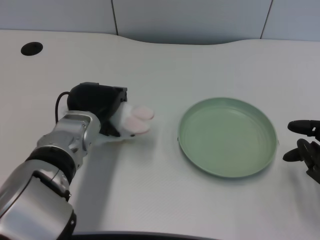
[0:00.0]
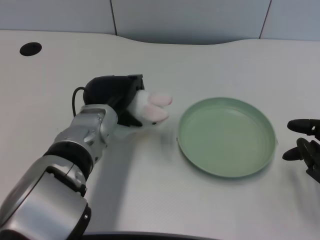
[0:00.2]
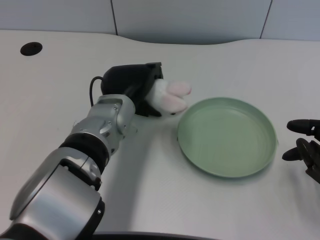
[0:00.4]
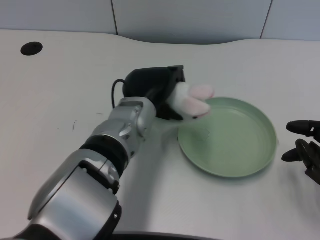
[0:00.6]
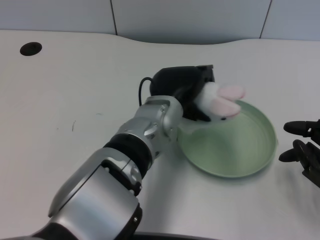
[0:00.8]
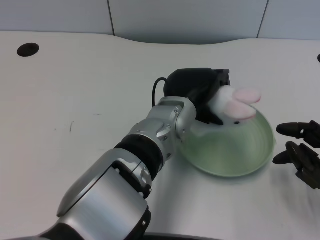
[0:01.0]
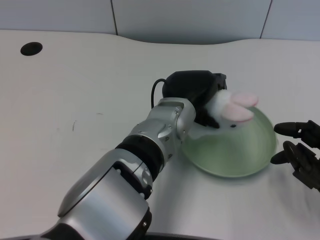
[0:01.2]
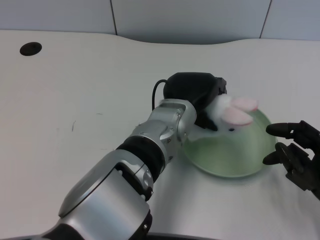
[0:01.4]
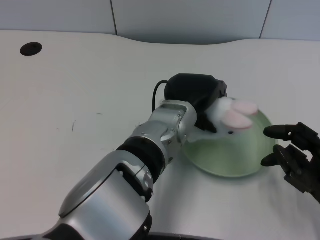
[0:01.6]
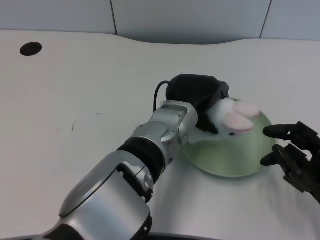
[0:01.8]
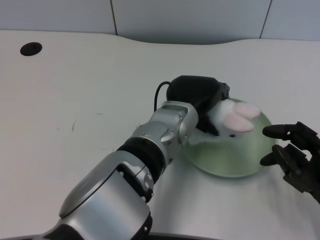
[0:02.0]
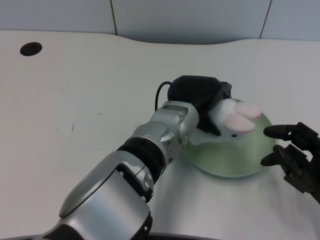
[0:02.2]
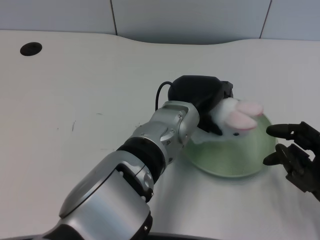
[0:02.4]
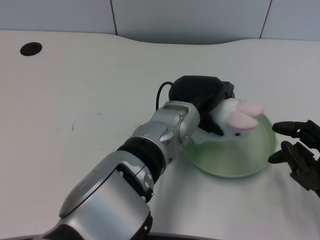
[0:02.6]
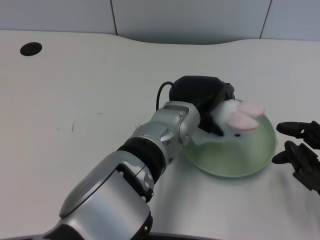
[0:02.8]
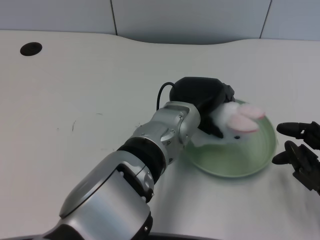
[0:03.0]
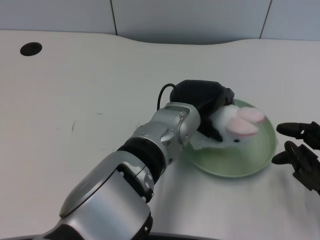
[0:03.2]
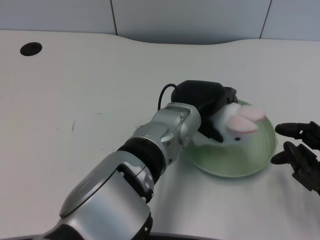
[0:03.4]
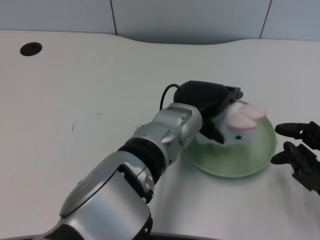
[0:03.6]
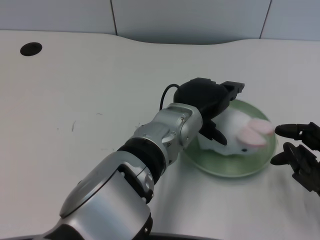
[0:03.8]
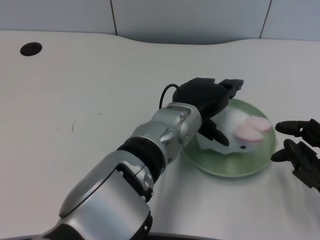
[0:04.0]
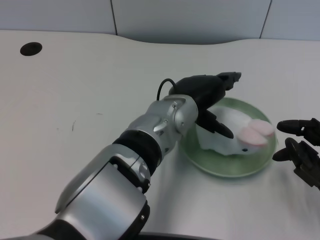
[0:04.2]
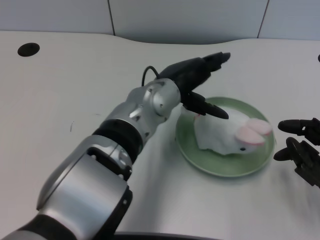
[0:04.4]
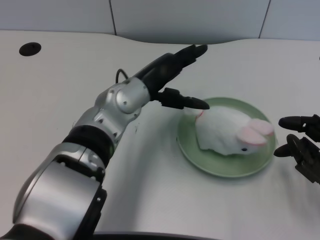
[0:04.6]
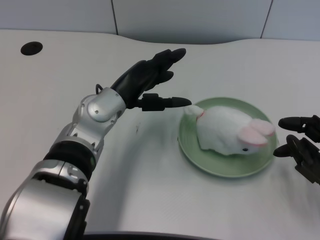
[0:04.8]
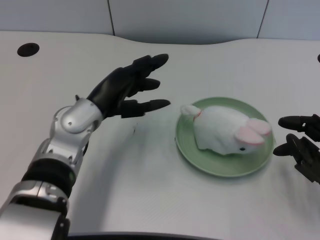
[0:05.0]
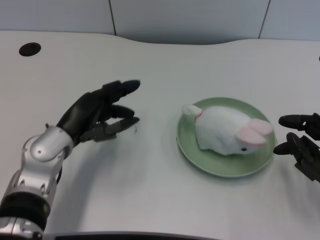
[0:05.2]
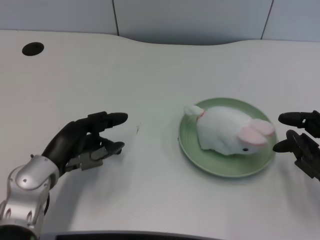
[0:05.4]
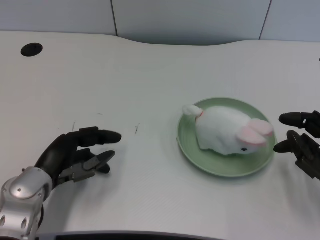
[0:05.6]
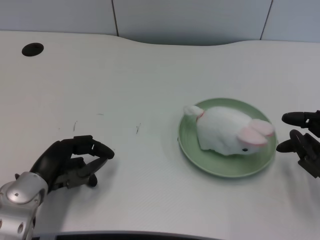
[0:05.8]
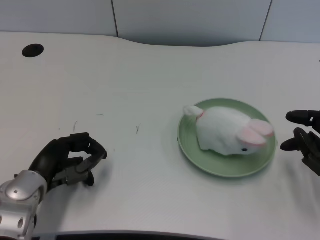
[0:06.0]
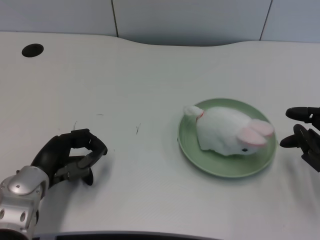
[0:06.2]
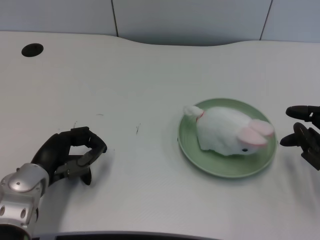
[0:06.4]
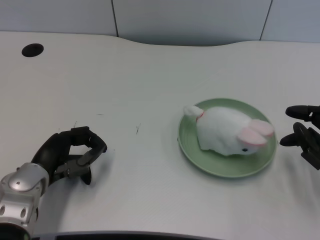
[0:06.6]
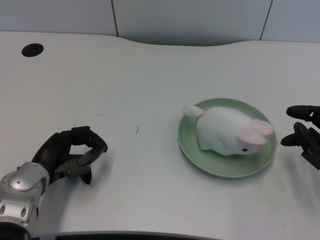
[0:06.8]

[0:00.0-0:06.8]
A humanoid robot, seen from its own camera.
Task of the whole recording: pick up the rabbit doll from the table and place it on the plate.
Step, 0:00.2 to 0:03.8: Place the rabbit doll into the plate with the left gripper.
0:00.0 to 0:01.4: The left hand is displaced to the right by about 15 cm.
0:01.4 to 0:02.8: Both hands stay about where they are.
0:02.8 to 0:04.0: The hands stay close to where they were, moving slightly.
0:04.0 to 0:05.4: The left hand heads to the left, covering some 20 cm.
0:05.4 to 0:06.8: The hands make only small movements.
